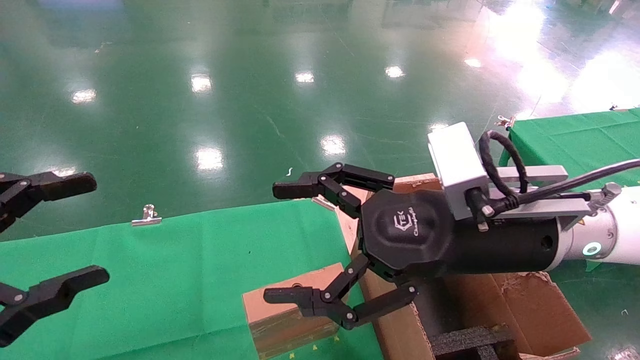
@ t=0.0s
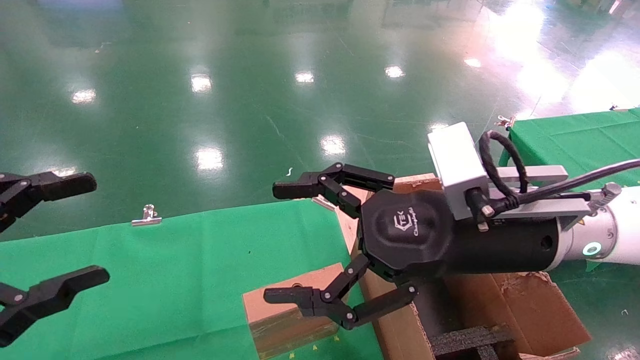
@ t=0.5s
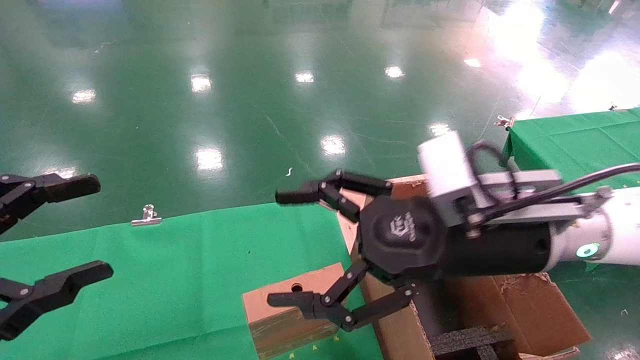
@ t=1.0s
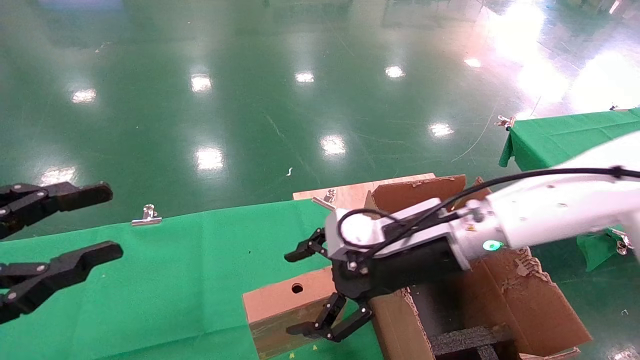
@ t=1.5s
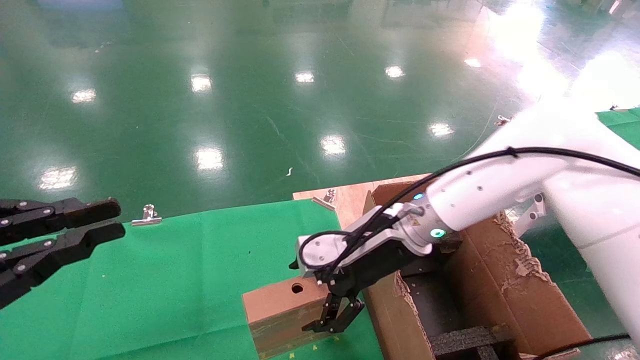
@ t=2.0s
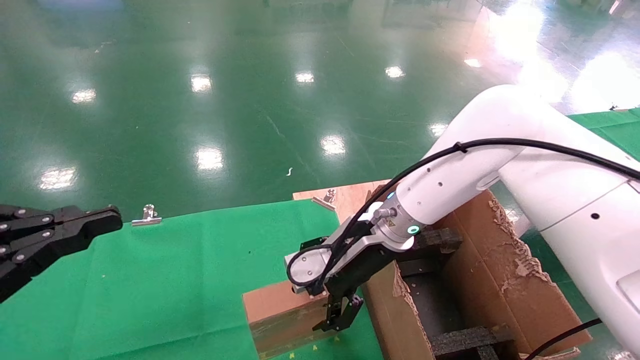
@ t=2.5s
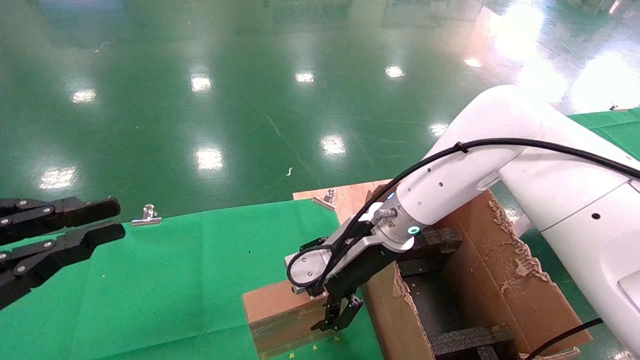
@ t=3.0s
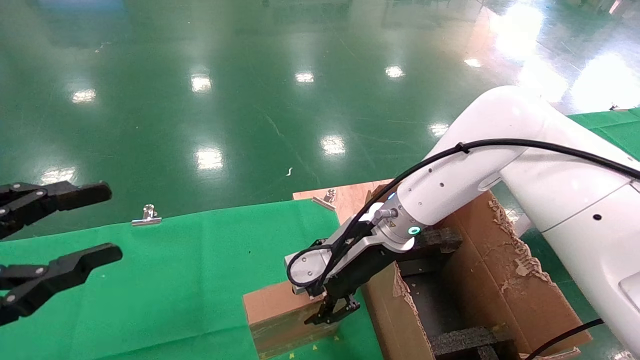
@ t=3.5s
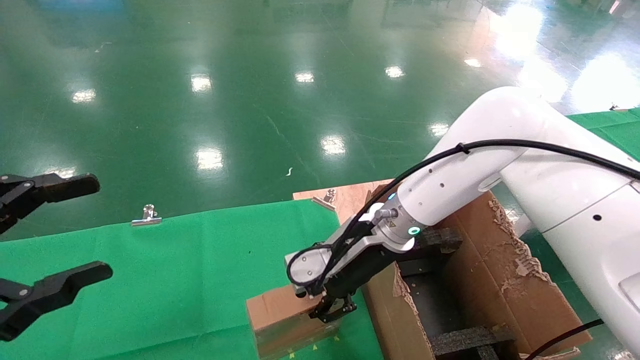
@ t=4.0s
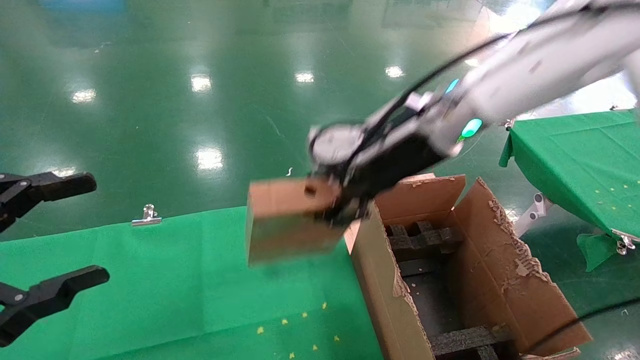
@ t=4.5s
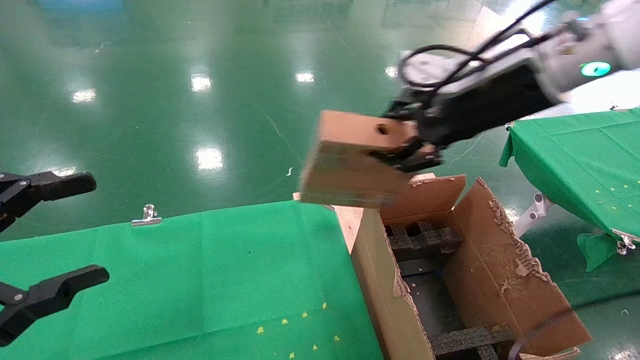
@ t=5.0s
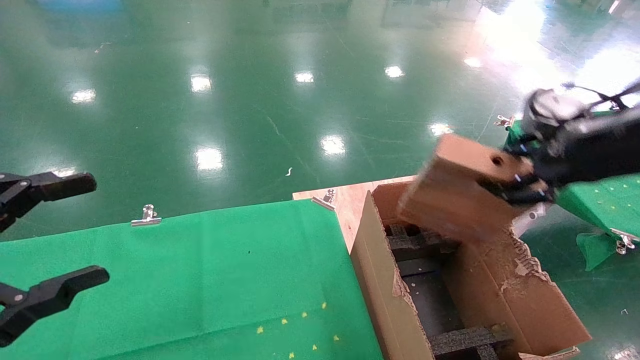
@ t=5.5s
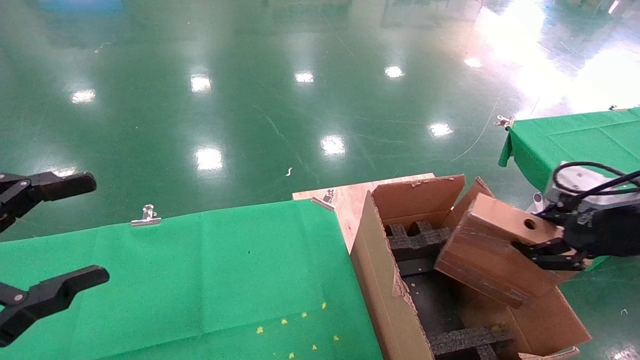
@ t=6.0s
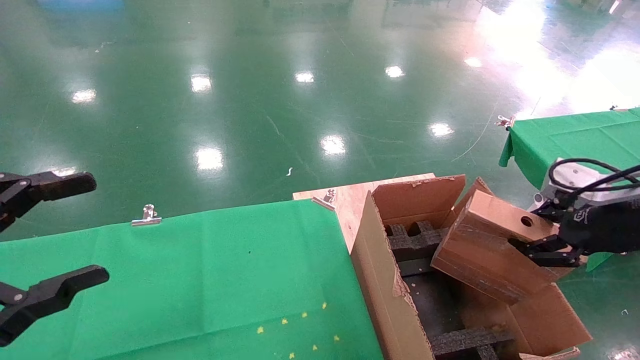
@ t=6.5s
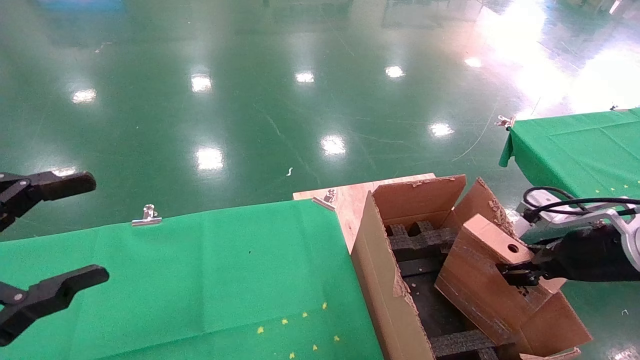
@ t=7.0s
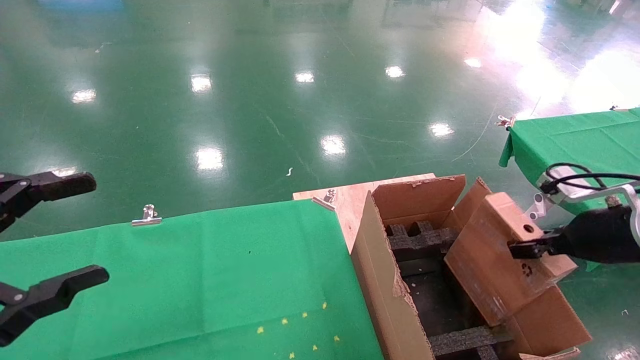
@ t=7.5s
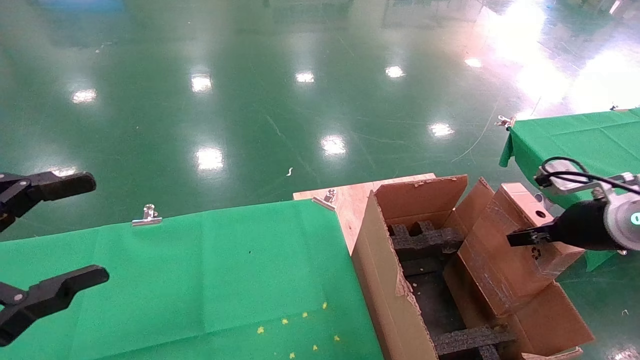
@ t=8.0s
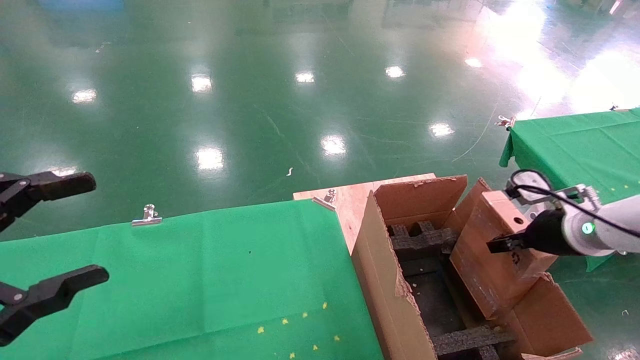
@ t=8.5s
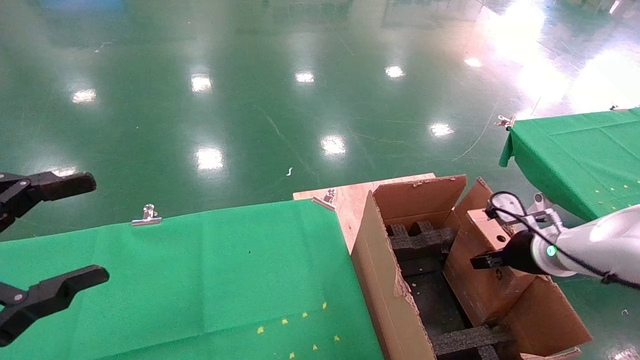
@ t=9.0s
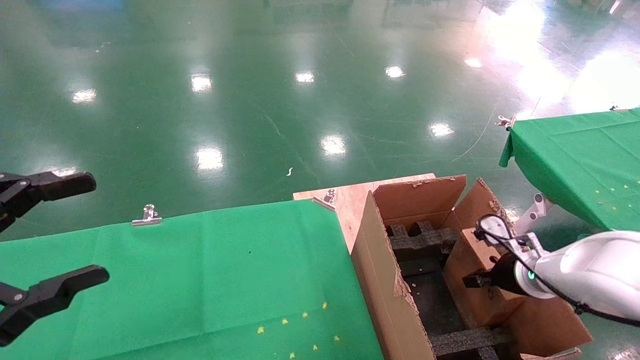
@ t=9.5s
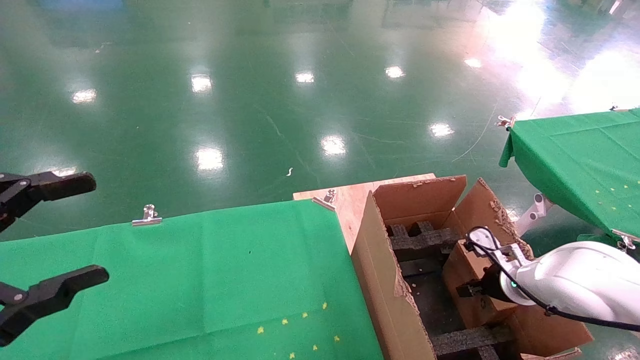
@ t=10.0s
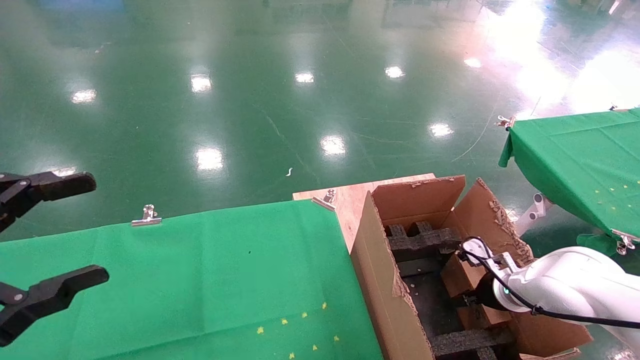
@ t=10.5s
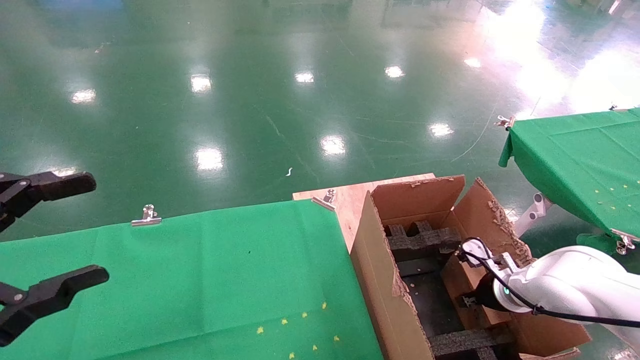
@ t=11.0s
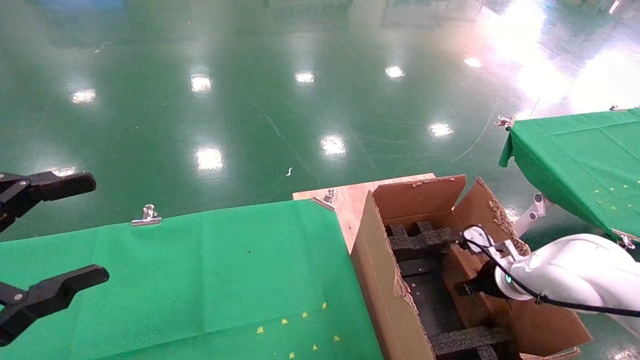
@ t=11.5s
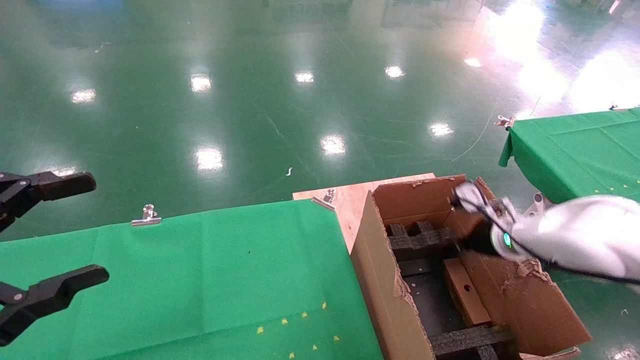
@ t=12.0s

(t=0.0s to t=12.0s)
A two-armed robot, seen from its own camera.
Task of the whole recording: using a robotic arm to pick up a cardboard box and palace it the carton.
Step, t=1.0s - t=3.5s: Pick up the mouse and the power cord paper box.
t=0.0s - t=2.0s: The right gripper moves forward, downward and to the left, approximately 15 cm. The left gripper closes up.
t=2.0s - t=4.0s: The right gripper closes up; the left gripper opens up.
t=4.0s - t=6.0s: The right gripper moves to the right and backward, roughly 30 cm.
t=6.0s - t=8.0s: The right gripper is displaced forward and downward by approximately 10 cm.
t=8.0s - t=10.0s: The right gripper is displaced downward and forward by about 20 cm.
t=10.0s - t=12.0s: The right gripper is displaced upward by some 10 cm, and opens up.

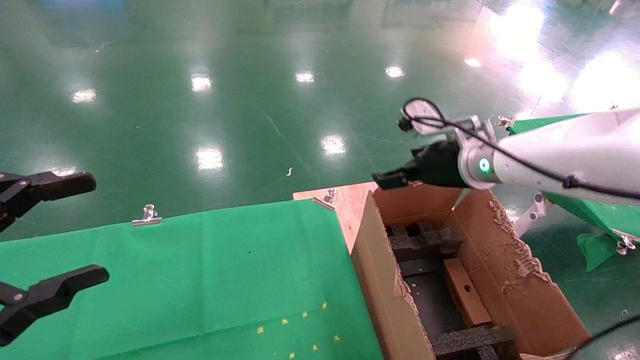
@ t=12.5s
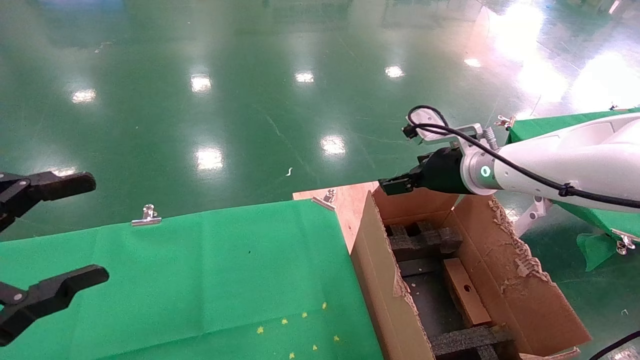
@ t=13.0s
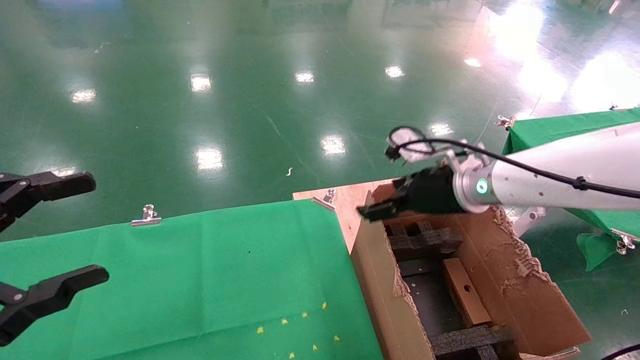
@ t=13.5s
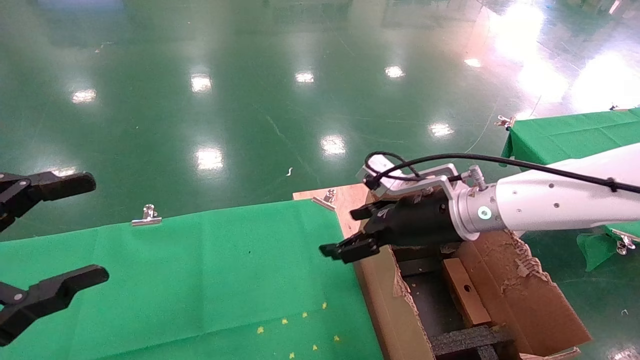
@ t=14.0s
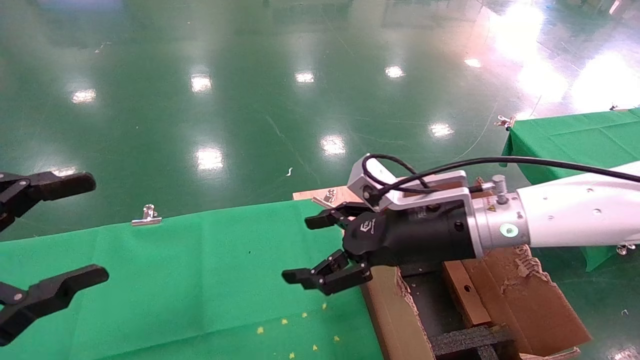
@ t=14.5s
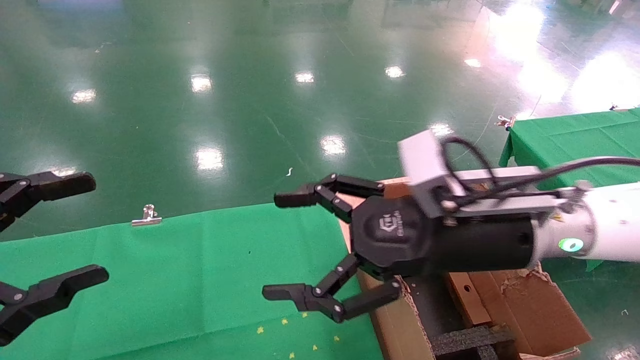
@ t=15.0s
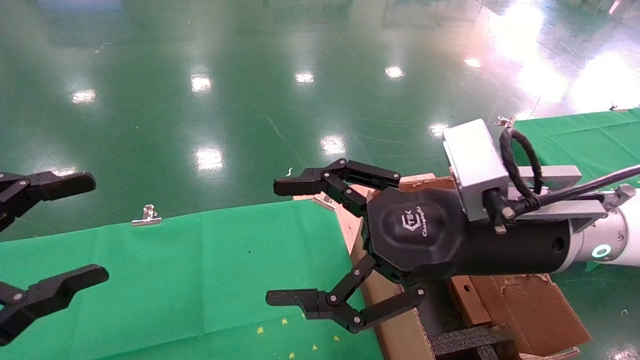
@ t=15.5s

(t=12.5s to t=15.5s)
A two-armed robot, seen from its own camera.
Task of the whole recording: using a robotic arm to pick up a cardboard box and palace it the carton.
t=12.5s - t=14.0s: The right gripper moves to the left, approximately 5 cm.
t=14.0s - t=15.5s: The right gripper is displaced backward and upward by approximately 15 cm.
